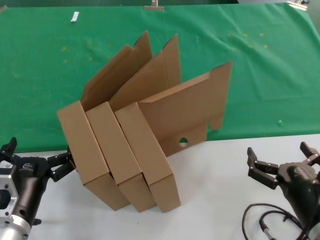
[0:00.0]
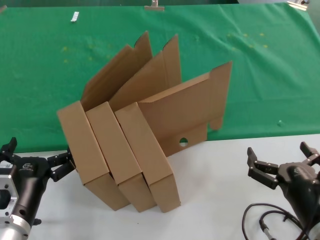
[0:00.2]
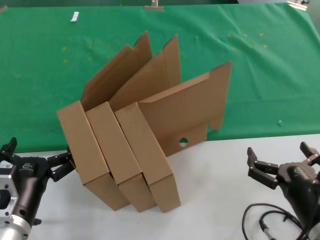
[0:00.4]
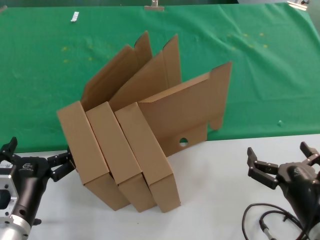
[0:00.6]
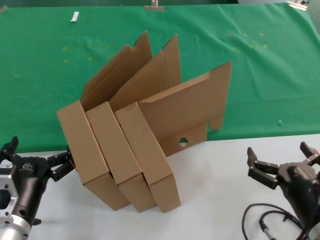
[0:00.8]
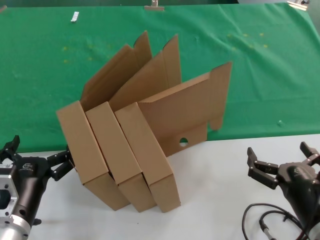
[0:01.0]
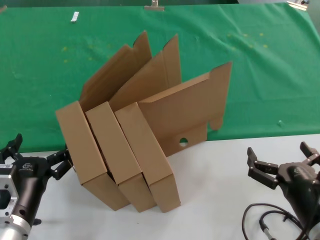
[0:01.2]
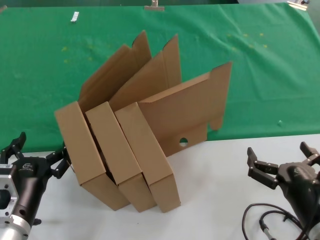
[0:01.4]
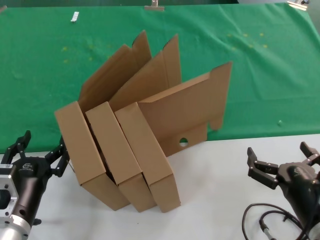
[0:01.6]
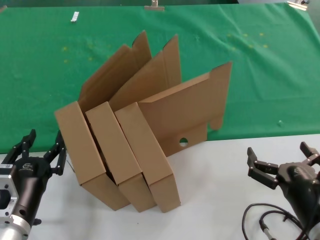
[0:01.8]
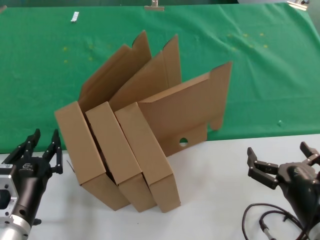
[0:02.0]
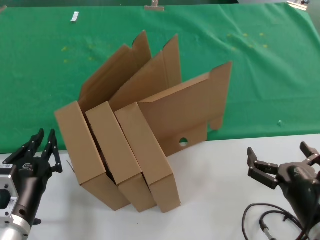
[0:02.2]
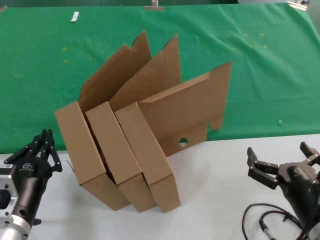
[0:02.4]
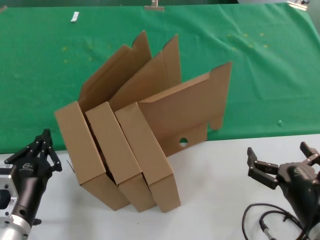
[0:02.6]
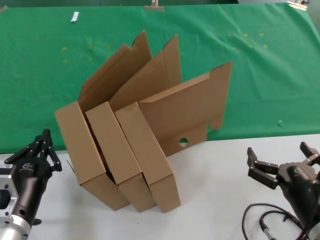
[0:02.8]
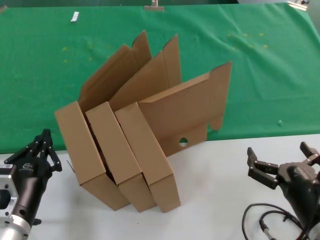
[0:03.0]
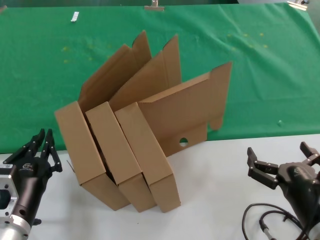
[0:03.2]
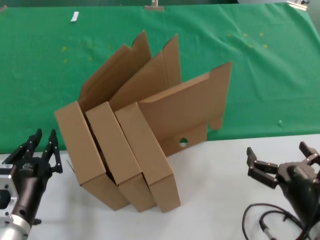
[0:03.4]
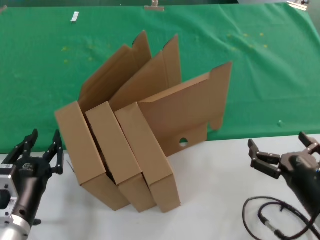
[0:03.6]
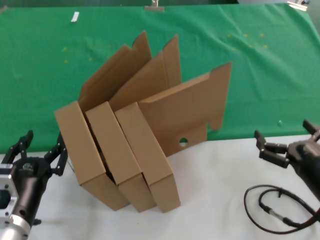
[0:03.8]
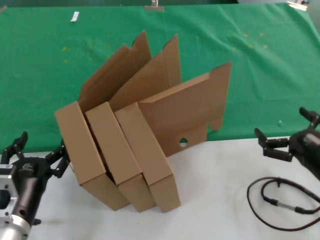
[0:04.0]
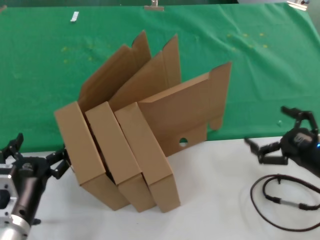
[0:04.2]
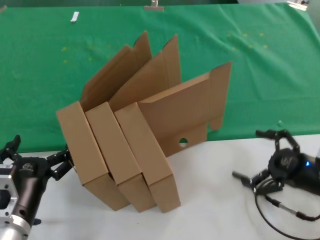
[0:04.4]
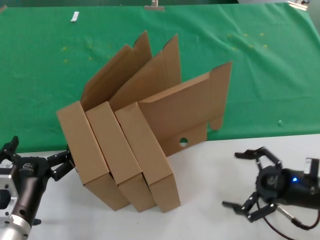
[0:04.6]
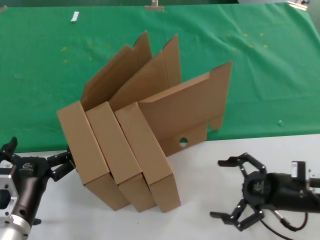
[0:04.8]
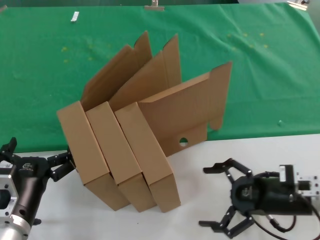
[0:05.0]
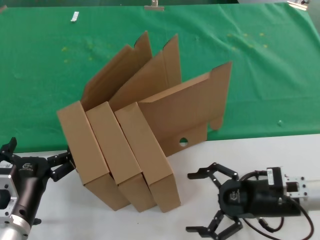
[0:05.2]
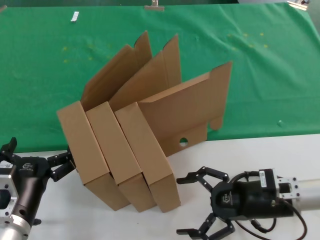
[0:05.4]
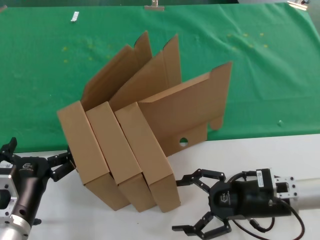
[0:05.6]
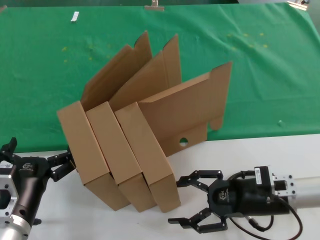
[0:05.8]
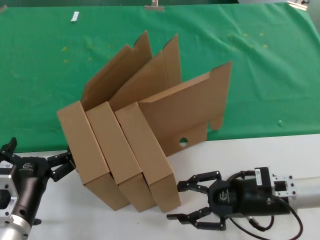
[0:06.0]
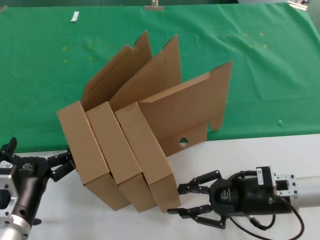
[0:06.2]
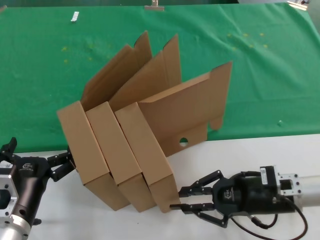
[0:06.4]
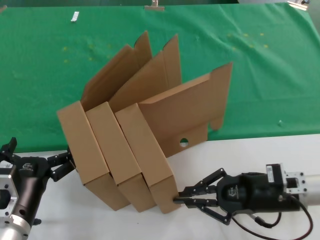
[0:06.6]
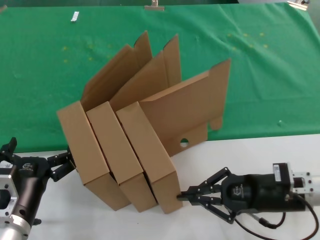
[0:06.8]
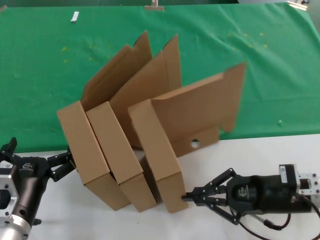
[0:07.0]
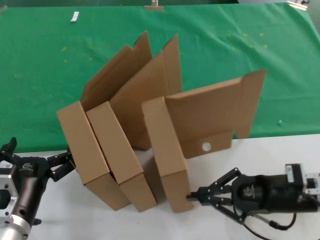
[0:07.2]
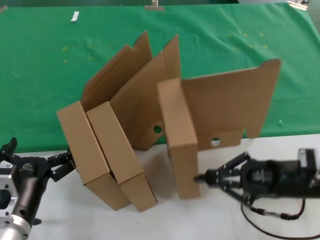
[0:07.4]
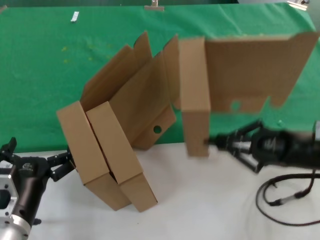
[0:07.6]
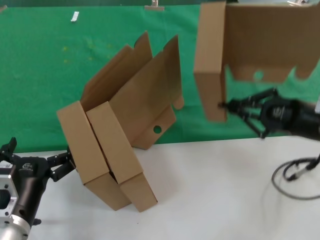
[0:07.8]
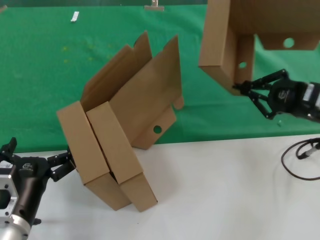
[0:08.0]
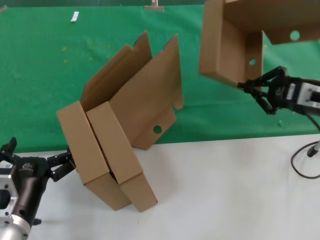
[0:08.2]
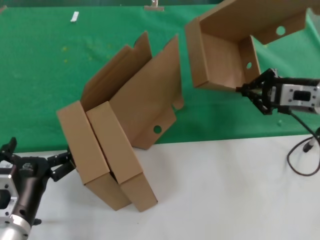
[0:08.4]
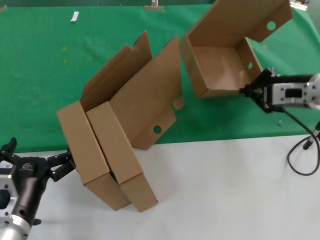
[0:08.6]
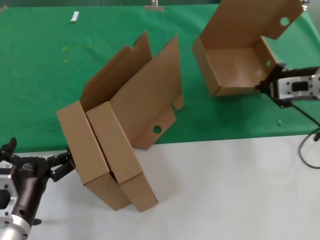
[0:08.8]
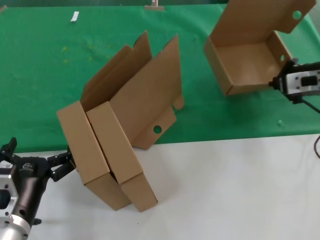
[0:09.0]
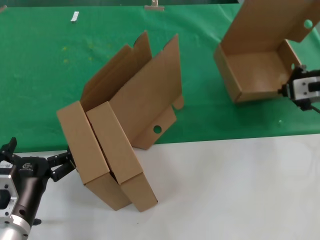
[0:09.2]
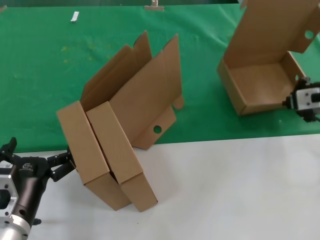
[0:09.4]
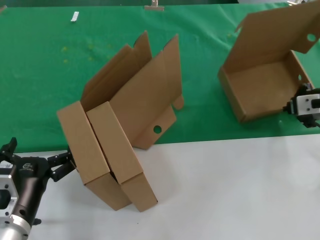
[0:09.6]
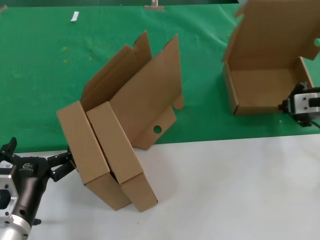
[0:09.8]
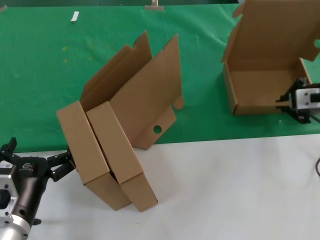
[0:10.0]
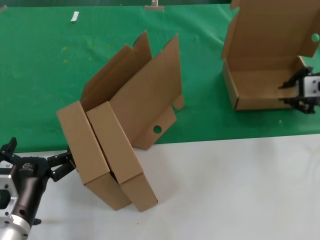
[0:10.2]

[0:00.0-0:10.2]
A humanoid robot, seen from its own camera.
Task of the whole recording: pick up the paper box and put it at the back.
Step, 0:00.0 to 0:06.6: Grasp the paper box.
0:00.0 to 0:03.0: Both hands stay put.
0:03.0 to 0:04.4: The right hand moves forward and to the right, roughly 20 cm.
0:04.4 to 0:05.8: The right hand moves to the left, some 10 cm.
0:05.8 to 0:07.2: The hands make only small movements.
0:07.2 to 0:08.8: The right hand goes approximately 20 cm upward and forward.
0:08.8 to 0:10.2: The hands stay close to where they were, moving slightly.

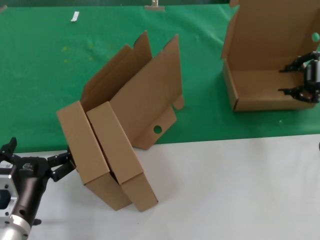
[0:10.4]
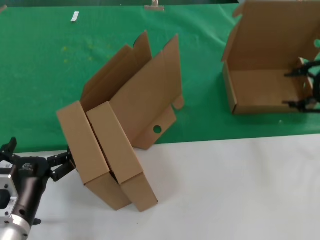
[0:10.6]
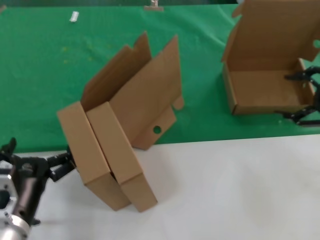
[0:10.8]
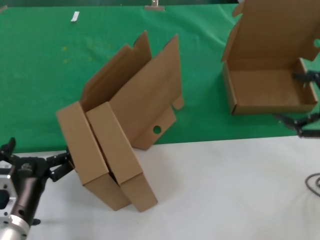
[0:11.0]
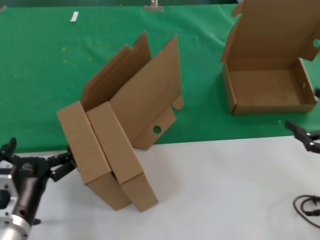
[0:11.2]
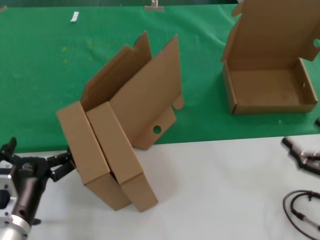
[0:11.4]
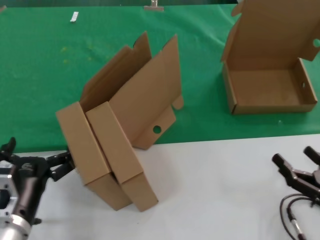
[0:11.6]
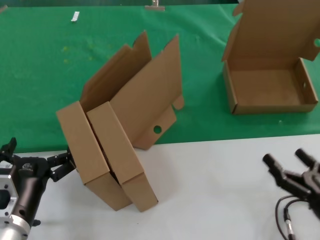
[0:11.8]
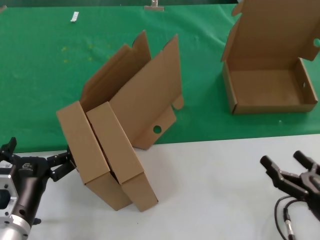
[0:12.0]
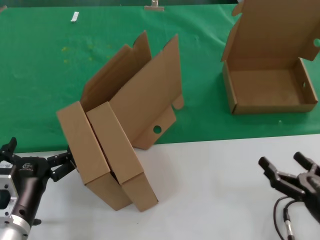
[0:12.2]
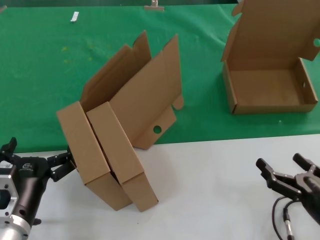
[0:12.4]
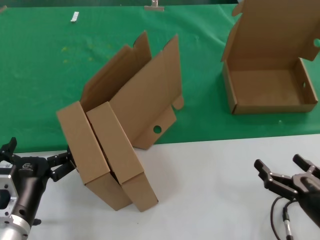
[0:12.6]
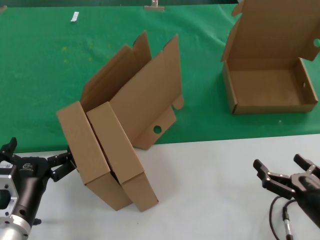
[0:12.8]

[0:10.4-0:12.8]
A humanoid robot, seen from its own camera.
Task of the whole recording: pick up the paper box and put it at the back.
0:10.4 to 0:11.6: The right hand shifts about 35 cm downward and backward.
0:11.6 to 0:12.8: The right hand shifts roughly 5 cm to the left.
